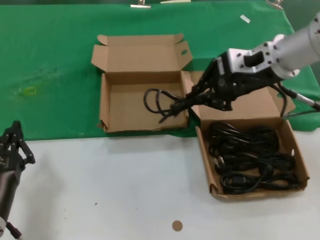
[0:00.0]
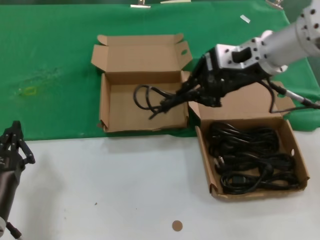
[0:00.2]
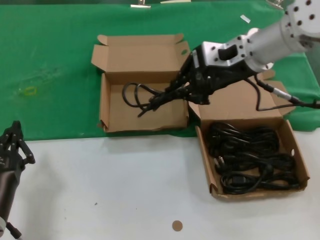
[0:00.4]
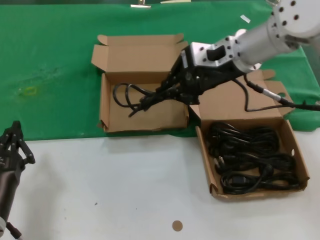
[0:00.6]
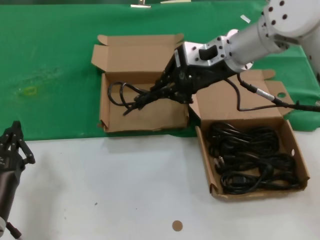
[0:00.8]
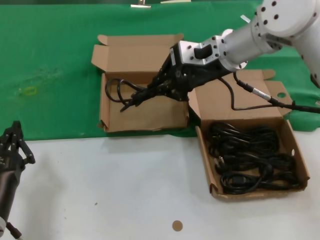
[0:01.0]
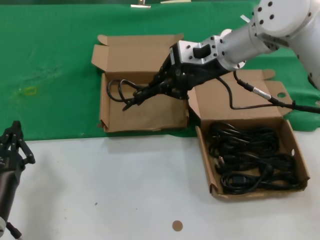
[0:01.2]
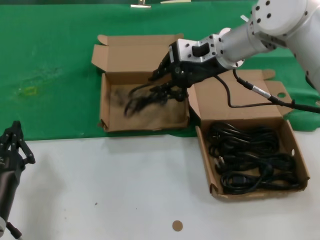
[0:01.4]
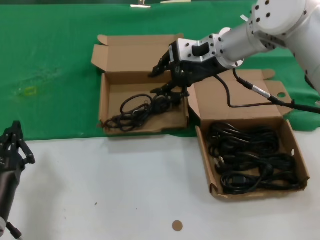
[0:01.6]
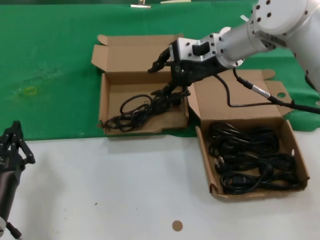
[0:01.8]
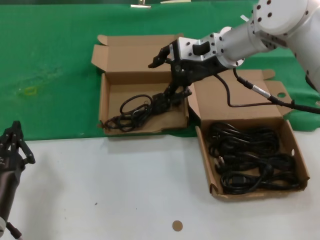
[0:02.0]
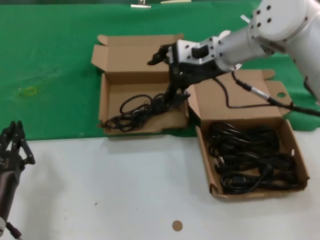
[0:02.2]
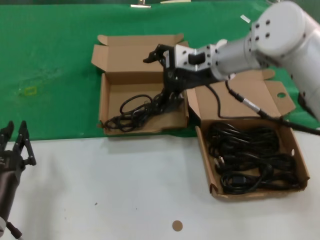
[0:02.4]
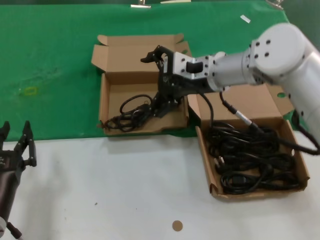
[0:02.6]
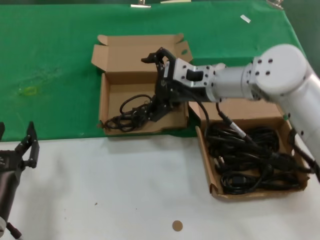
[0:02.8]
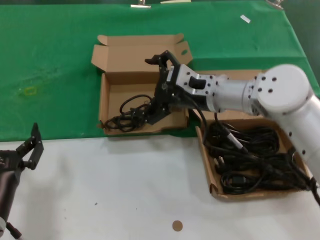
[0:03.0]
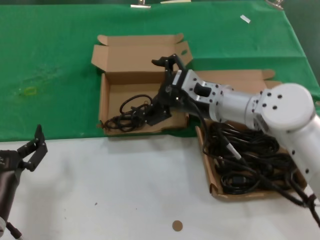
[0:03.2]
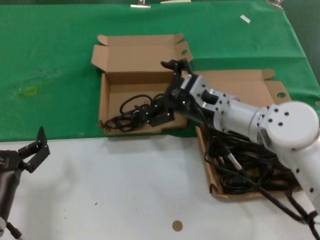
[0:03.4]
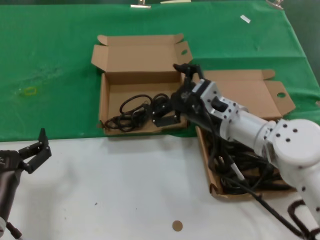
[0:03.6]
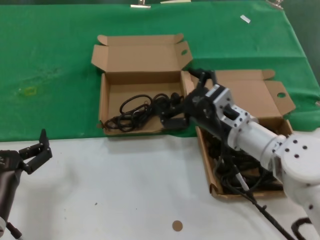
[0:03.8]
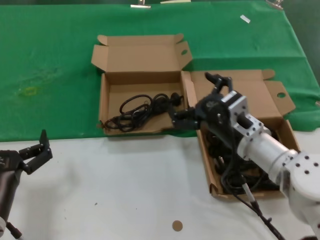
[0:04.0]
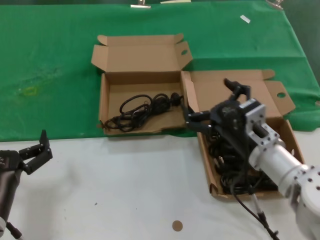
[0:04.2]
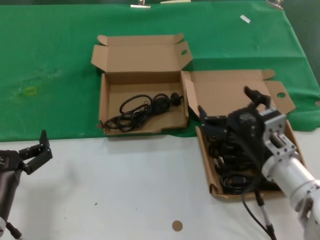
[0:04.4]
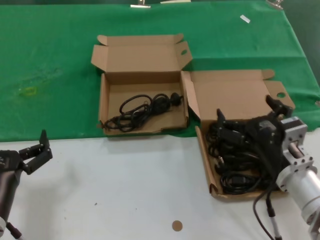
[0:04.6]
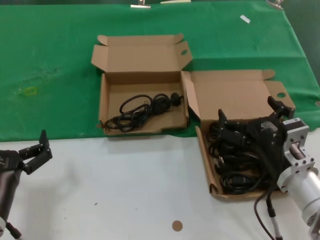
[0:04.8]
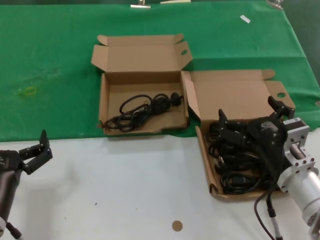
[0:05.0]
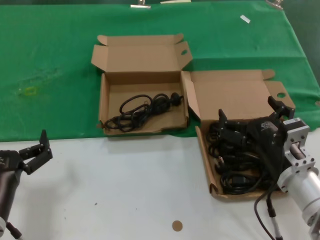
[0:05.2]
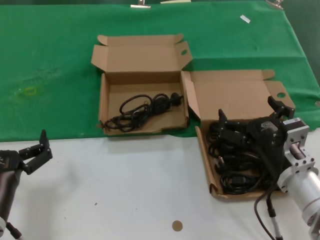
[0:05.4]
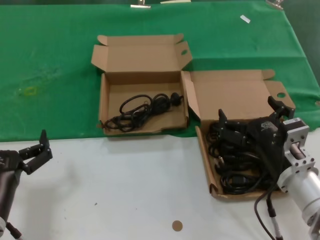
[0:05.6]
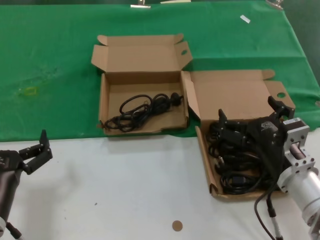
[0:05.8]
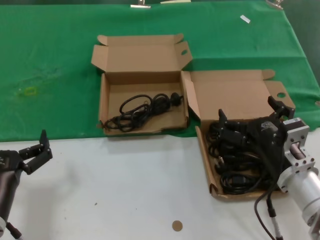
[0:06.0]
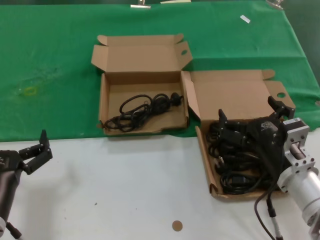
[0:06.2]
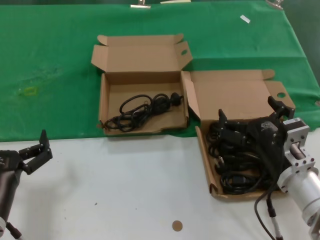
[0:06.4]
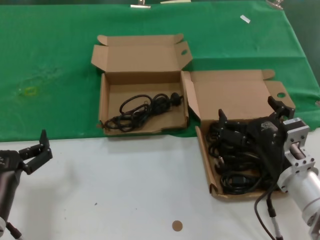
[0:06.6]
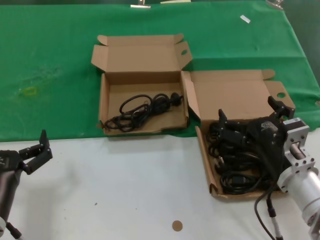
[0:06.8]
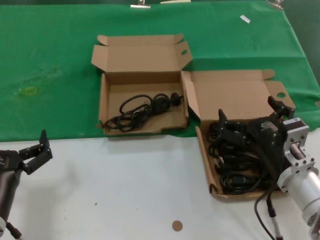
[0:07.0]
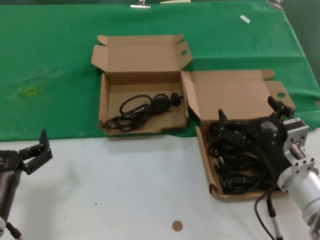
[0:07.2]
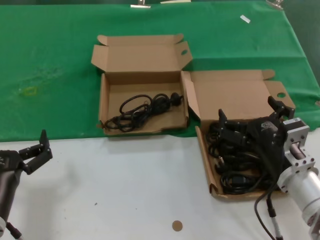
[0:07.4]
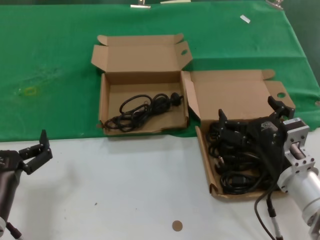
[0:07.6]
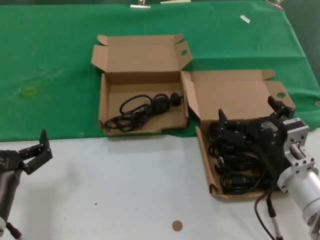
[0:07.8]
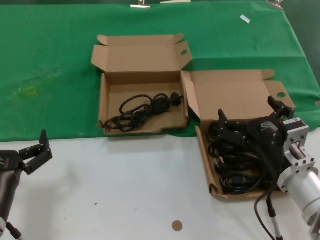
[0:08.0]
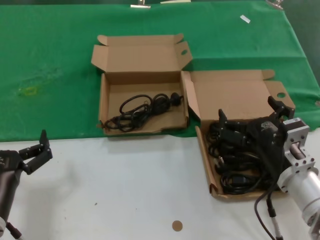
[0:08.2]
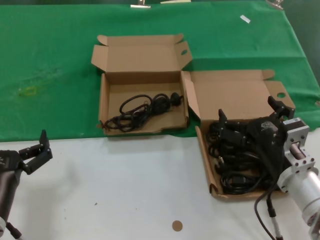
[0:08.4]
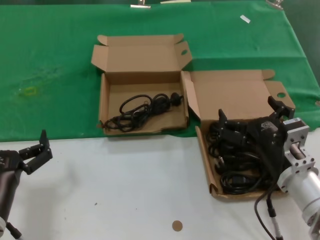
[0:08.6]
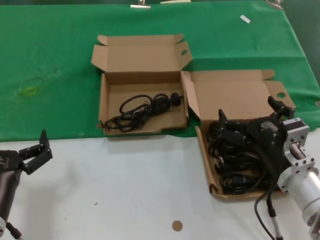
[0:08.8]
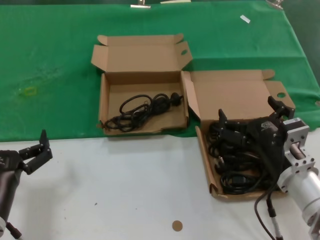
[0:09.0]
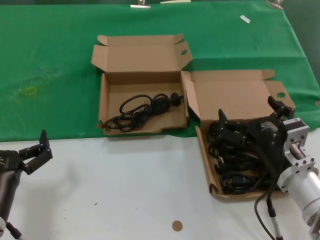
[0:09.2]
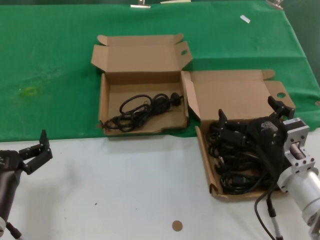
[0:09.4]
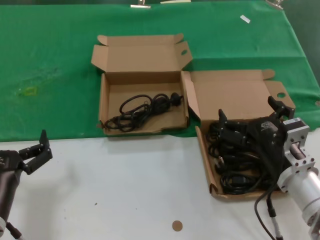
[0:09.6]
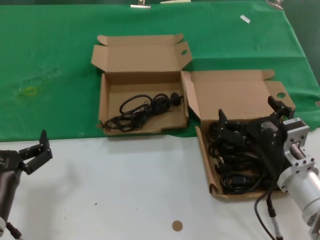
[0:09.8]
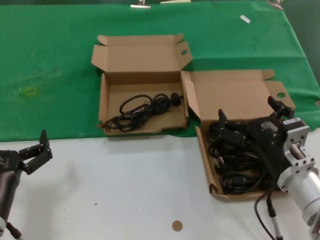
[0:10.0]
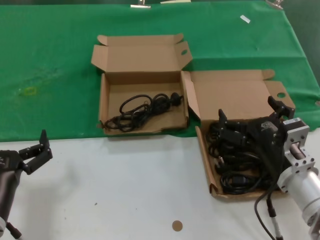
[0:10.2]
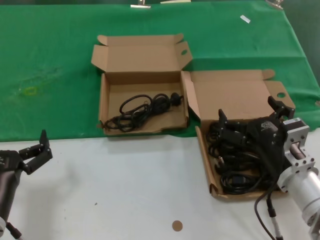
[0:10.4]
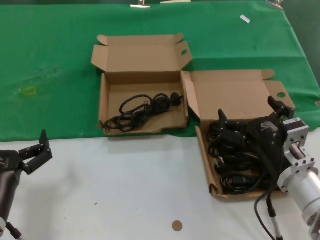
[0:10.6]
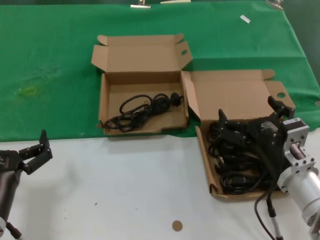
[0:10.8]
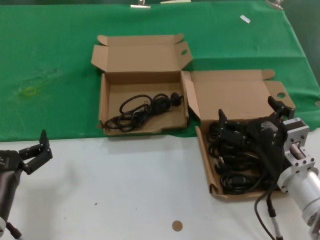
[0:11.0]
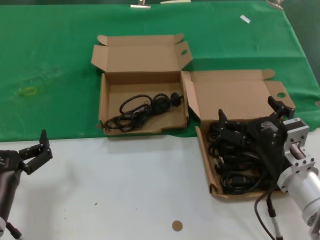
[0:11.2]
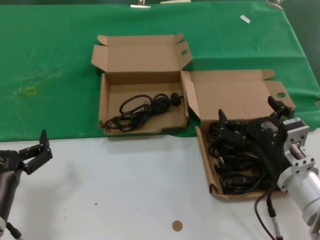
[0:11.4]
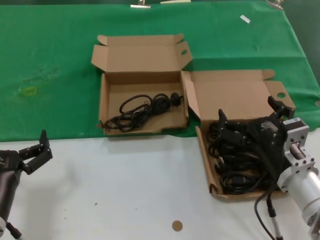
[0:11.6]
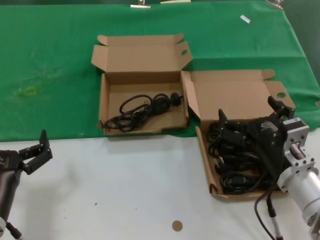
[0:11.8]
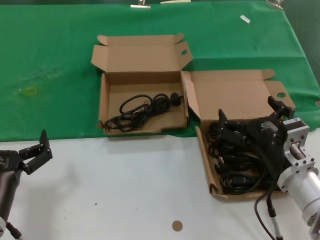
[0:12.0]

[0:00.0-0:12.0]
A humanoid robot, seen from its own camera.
Task of the whole recording: take the parts from the box containing them and put them into an empty box.
0:00.0 to 0:01.6: The right hand goes roughly 10 cm to the left and forward.
0:01.6 to 0:03.0: The right hand travels downward by roughly 10 cm.
0:03.0 to 0:04.4: The right hand heads backward, downward and to the right, covering some 20 cm.
0:04.4 to 0:06.0: The hands stay close to where they were, moving slightly.
0:06.0 to 0:12.0: Both hands stay put.
